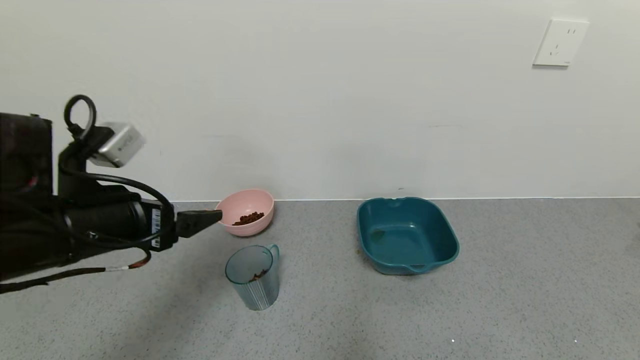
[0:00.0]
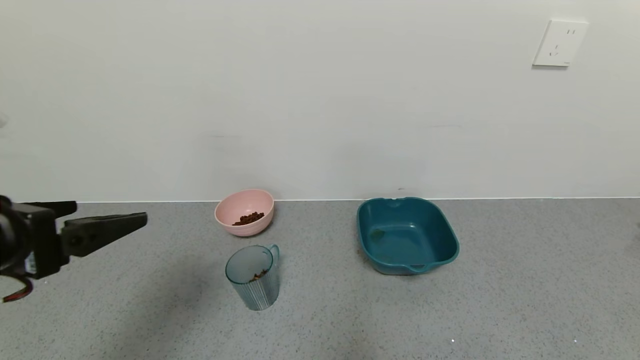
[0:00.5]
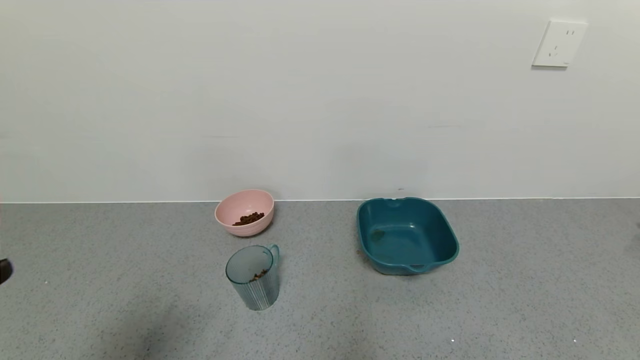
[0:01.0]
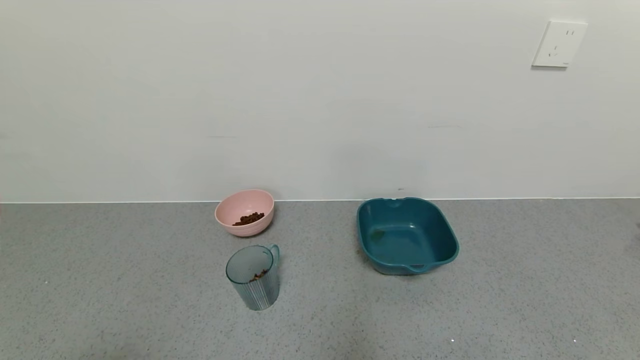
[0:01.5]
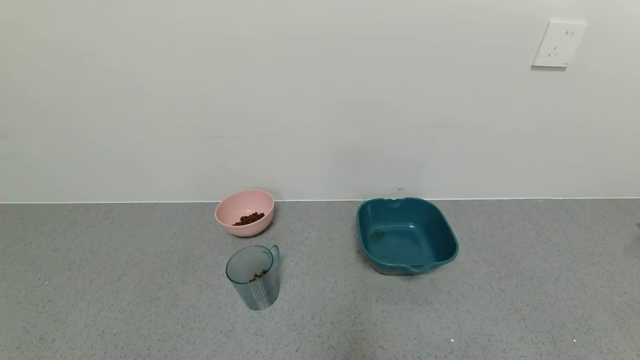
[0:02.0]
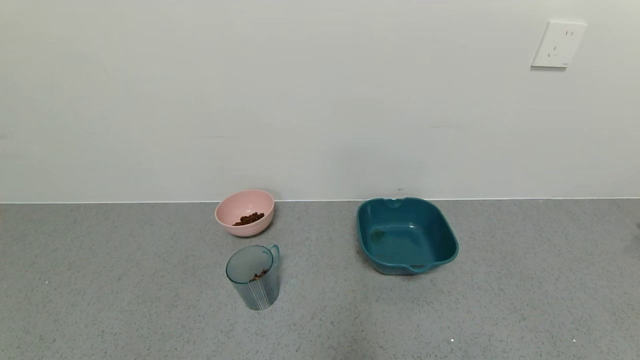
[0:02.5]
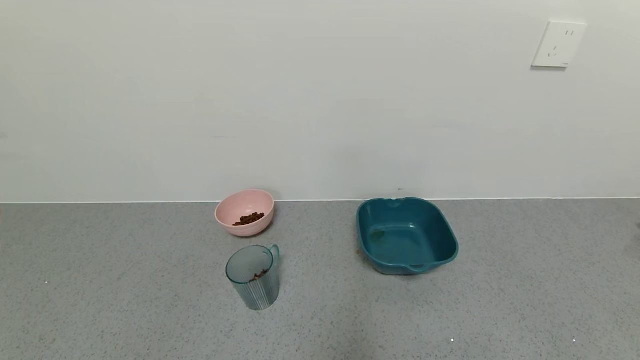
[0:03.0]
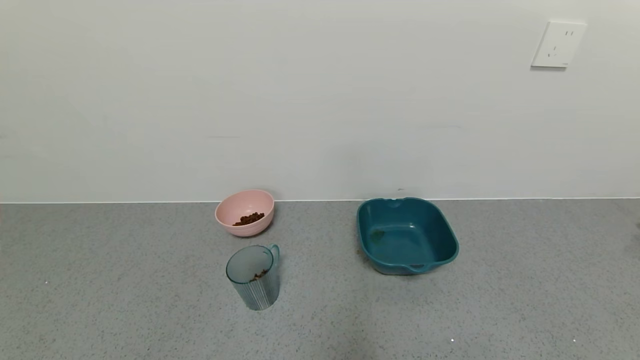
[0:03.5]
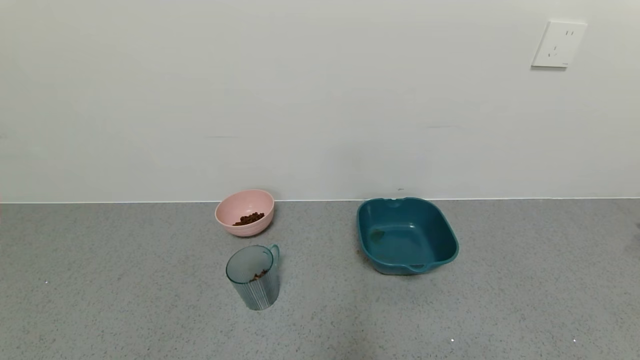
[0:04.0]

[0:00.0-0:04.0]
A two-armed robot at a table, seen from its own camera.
Task of the whole recording: use a gripper to pick up the cup and pour the solid into a bowl or tray.
0:00.0 to 0:02.0: The left gripper travels backward by approximately 30 cm.
